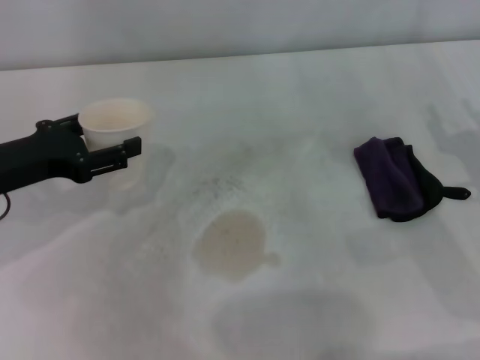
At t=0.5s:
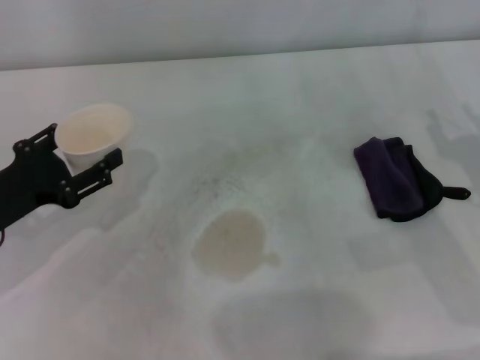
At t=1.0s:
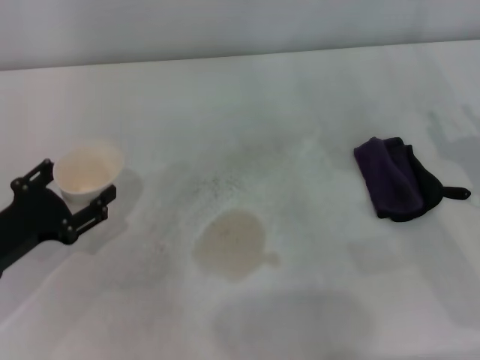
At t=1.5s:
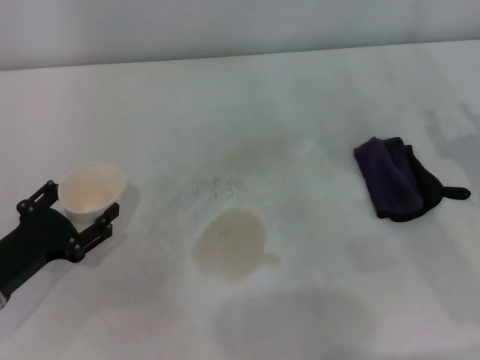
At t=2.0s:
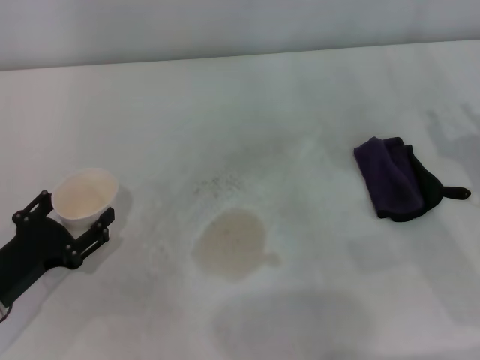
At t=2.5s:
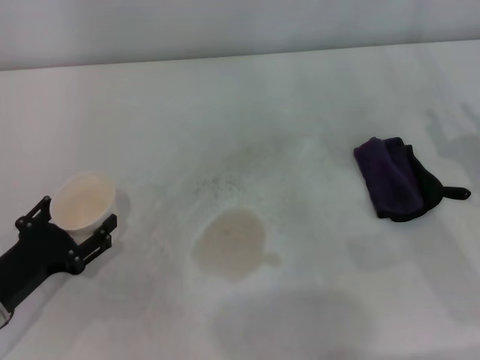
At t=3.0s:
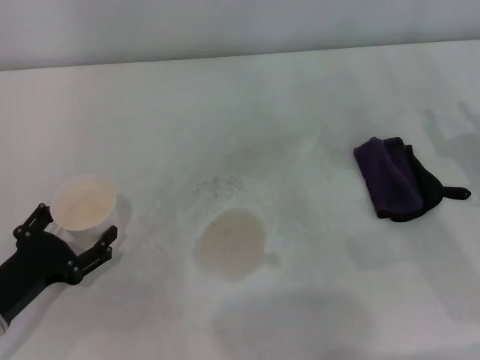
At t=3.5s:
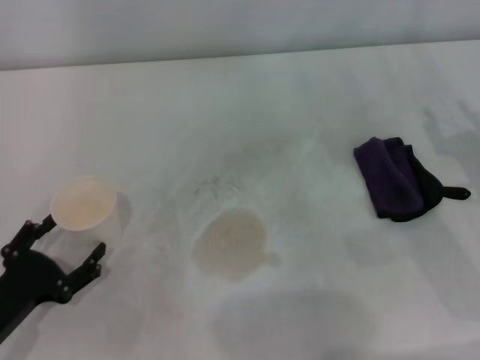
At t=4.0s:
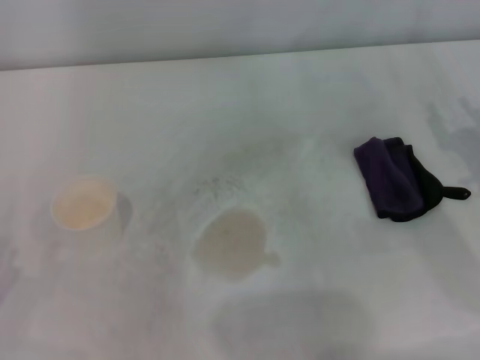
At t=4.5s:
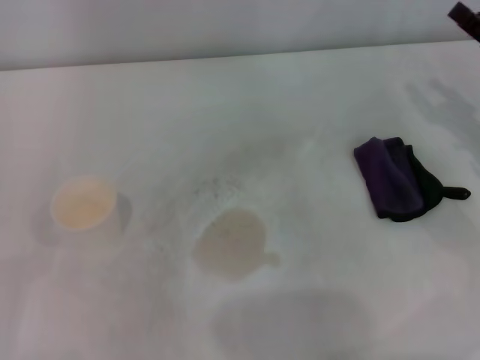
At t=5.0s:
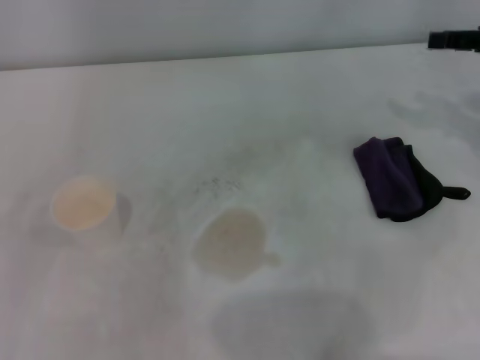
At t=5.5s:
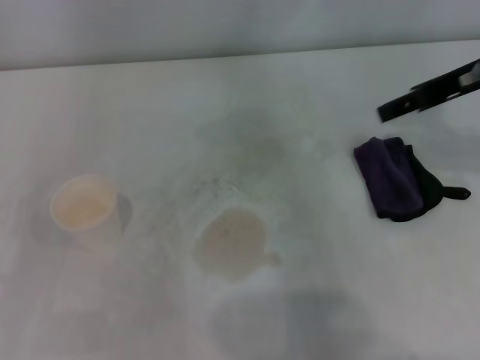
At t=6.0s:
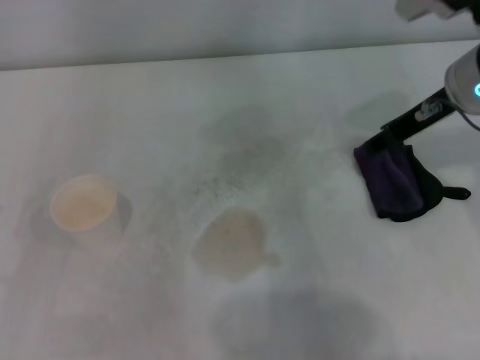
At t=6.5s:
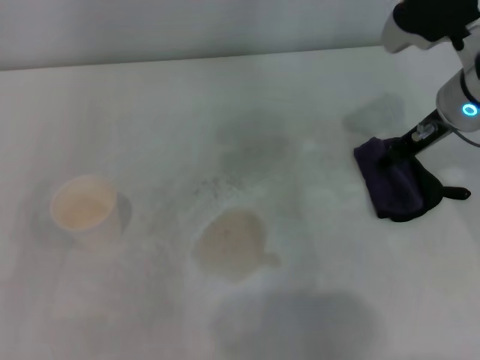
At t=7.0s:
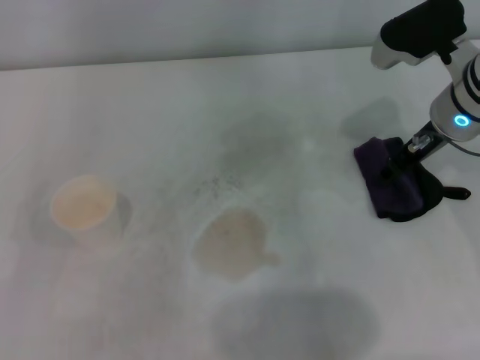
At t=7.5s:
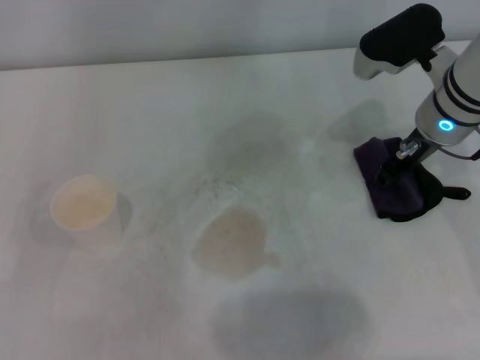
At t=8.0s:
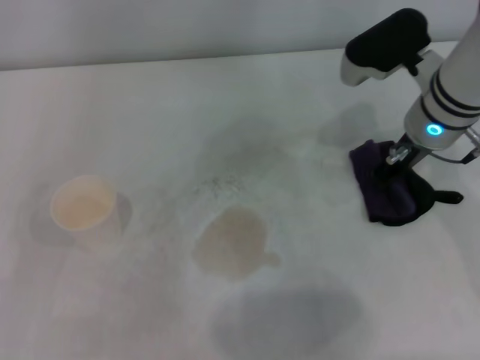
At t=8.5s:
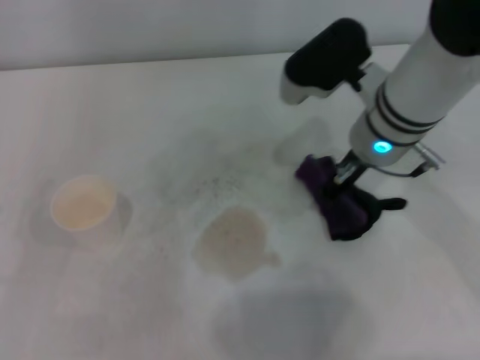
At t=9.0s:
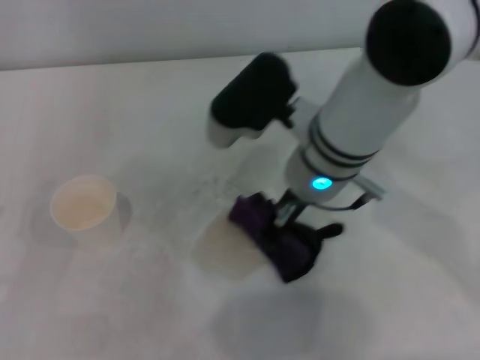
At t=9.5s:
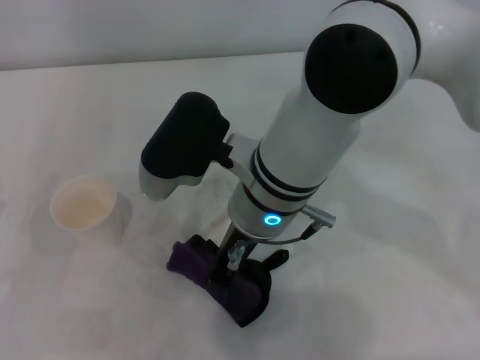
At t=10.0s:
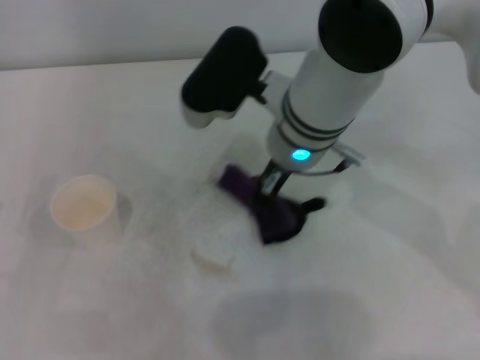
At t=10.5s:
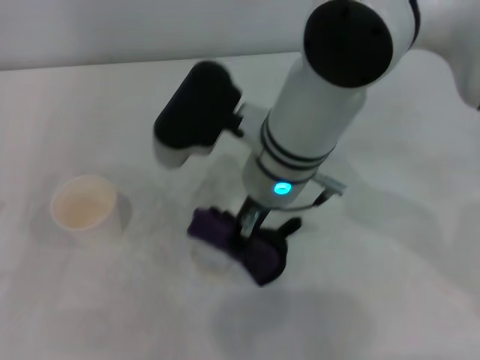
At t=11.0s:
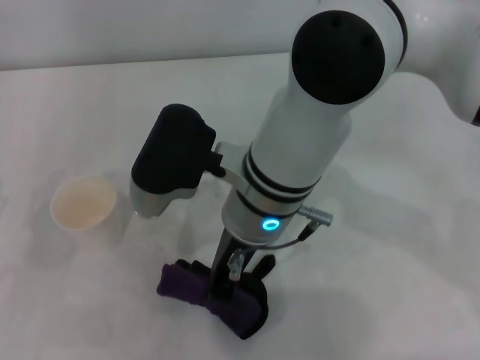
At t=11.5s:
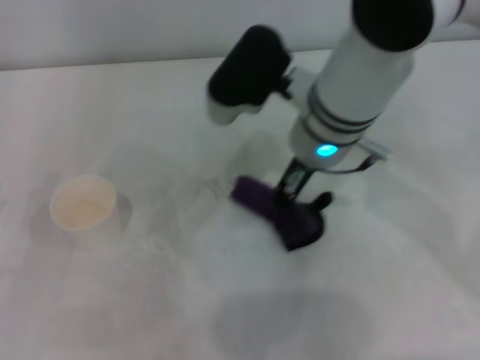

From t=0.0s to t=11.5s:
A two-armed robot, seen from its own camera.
Step, from t=0.0s to t=2.5s: Stand the paper cup upright with the left gripper.
Step, from t=3.0s to t=8.0s: Grasp the rag with the right gripper.
Step, from t=8.5s to t=11.5s: Wipe the stains off the table with the right gripper.
From t=0.0s to t=2.0s: The left gripper is displaced downward and backward by about 15 cm.
From t=2.0s to t=4.0s: The left gripper shifts approximately 10 cm backward and to the left, and opens its fingers.
From t=4.0s to t=6.0s: The right gripper heads upward, forward and to the left, covering roughly 20 cm.
From t=6.0s to t=7.5s: The right gripper changes place by some 5 cm.
From t=7.5s to t=9.5s: The right gripper shifts roughly 20 cm to the left, and closes up.
From t=9.5s to t=11.5s: The right gripper moves to the right and forward, roughly 10 cm.

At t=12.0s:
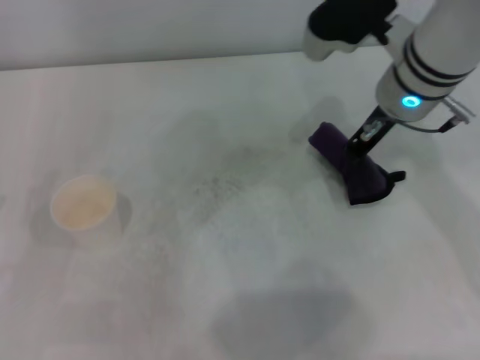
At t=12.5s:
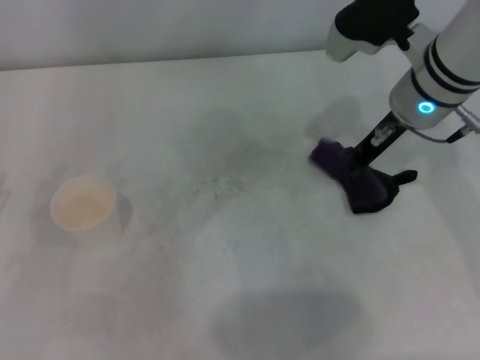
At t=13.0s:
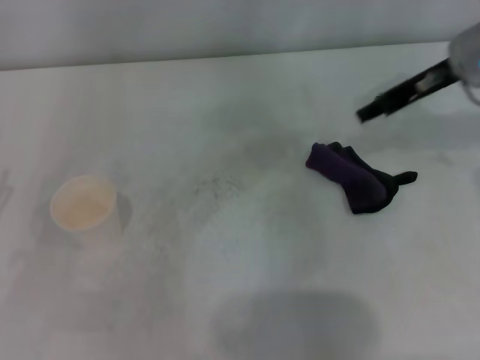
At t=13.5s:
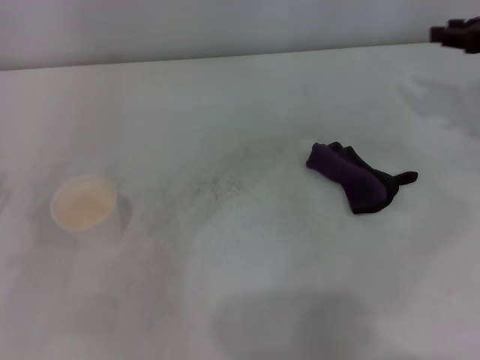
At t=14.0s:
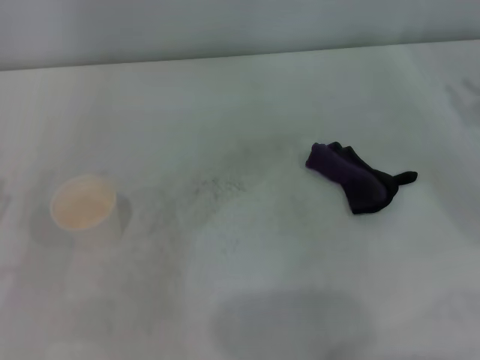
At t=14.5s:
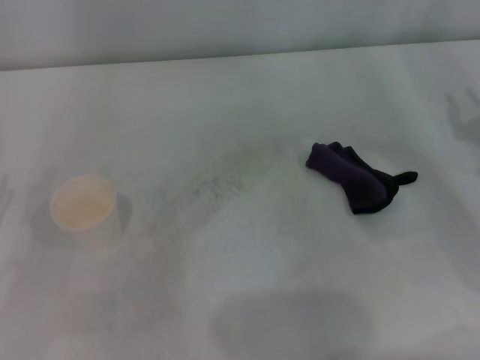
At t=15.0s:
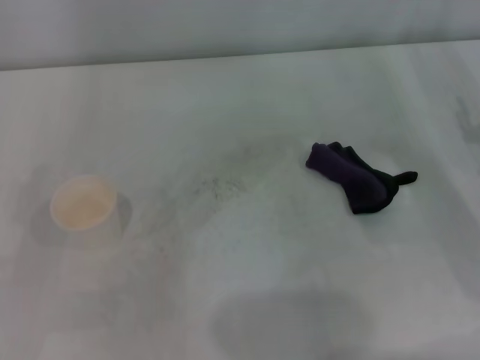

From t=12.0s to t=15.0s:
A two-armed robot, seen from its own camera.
Step, from t=12.0s to t=12.5s: Place the rag on the table with the right gripper.
From t=12.0s to t=13.5s: The right gripper shifts approximately 20 cm to the right, and opens.
From t=13.5s to t=15.0s: The right gripper travels downward and backward by approximately 15 cm.
